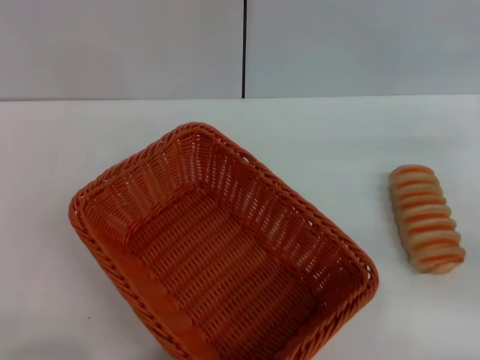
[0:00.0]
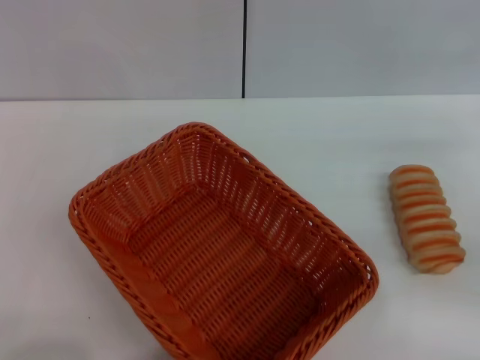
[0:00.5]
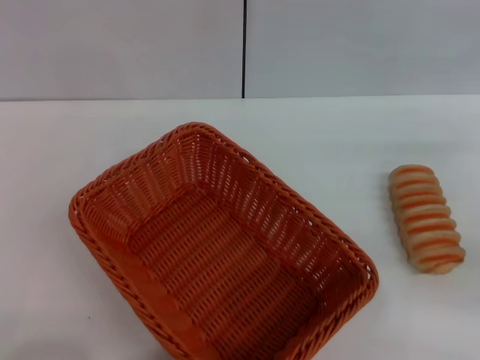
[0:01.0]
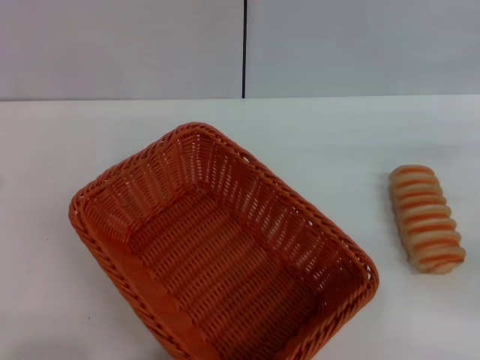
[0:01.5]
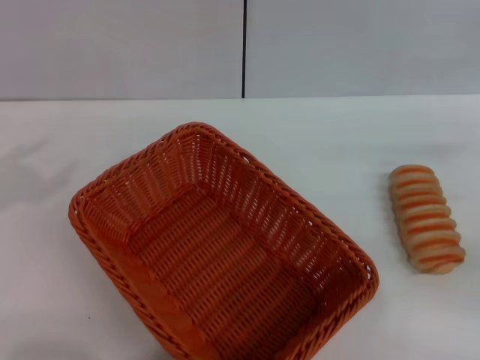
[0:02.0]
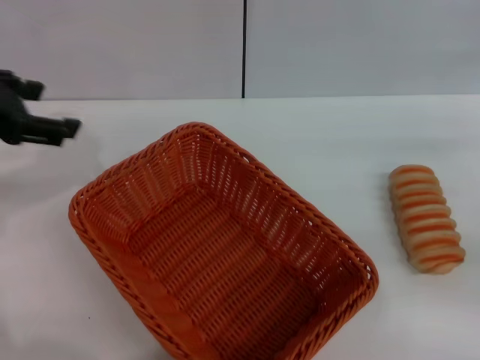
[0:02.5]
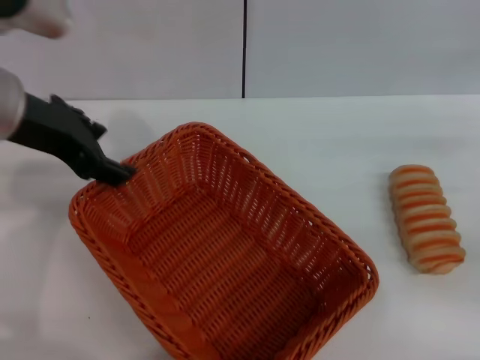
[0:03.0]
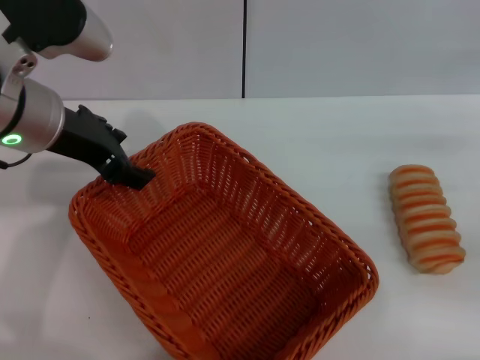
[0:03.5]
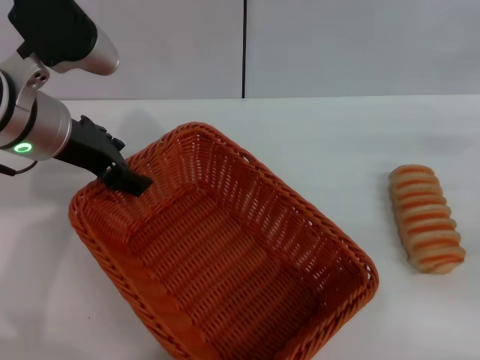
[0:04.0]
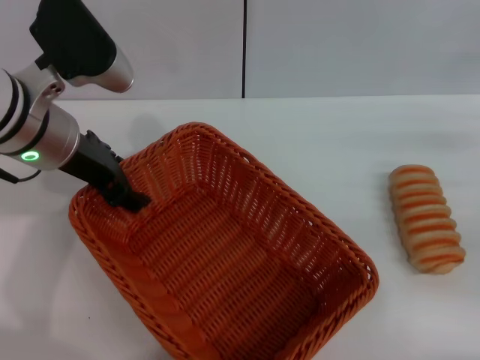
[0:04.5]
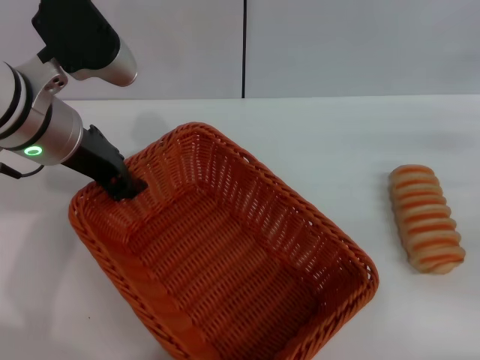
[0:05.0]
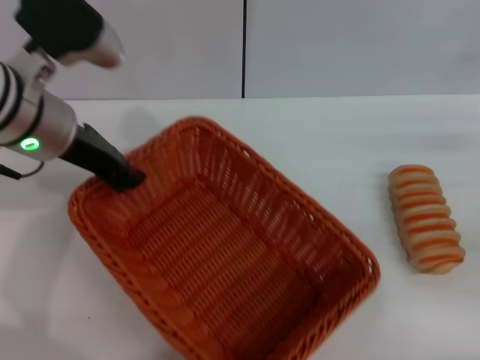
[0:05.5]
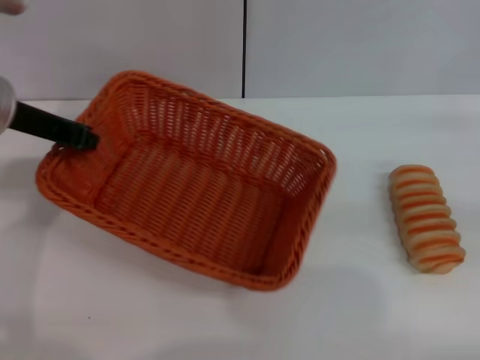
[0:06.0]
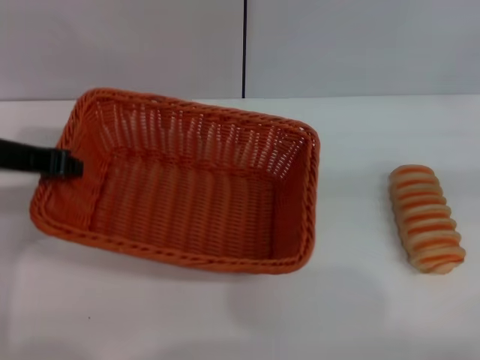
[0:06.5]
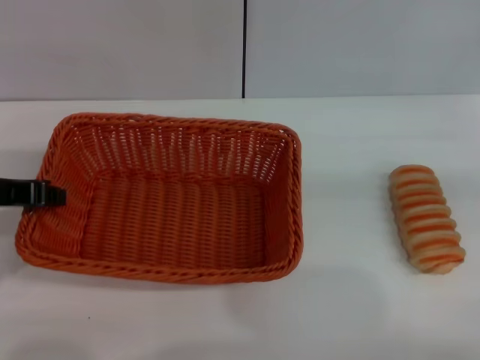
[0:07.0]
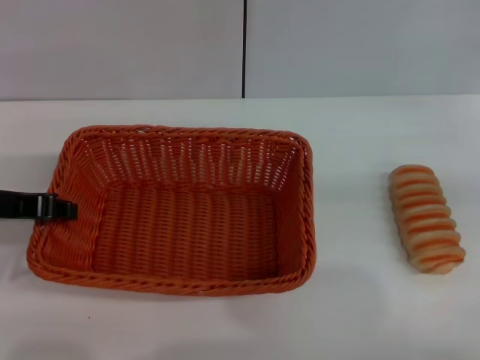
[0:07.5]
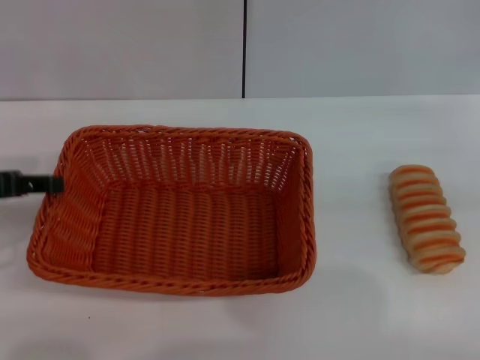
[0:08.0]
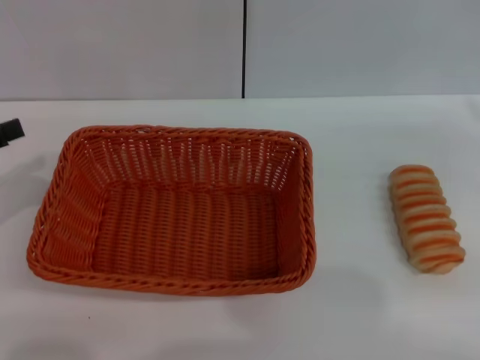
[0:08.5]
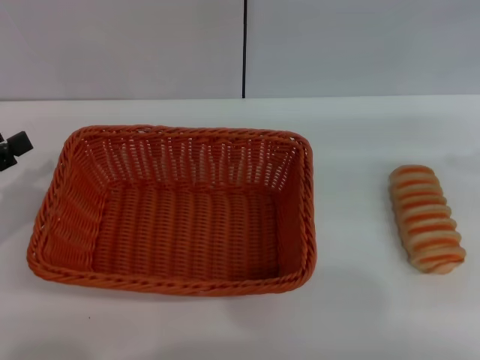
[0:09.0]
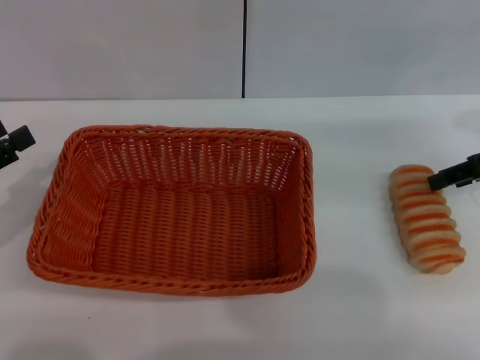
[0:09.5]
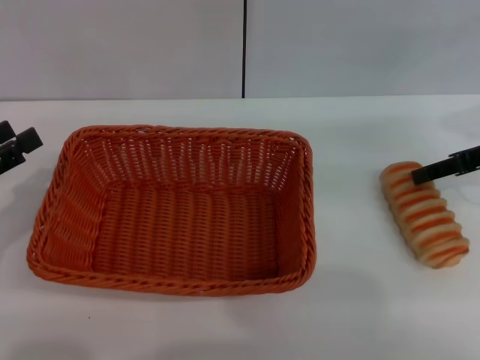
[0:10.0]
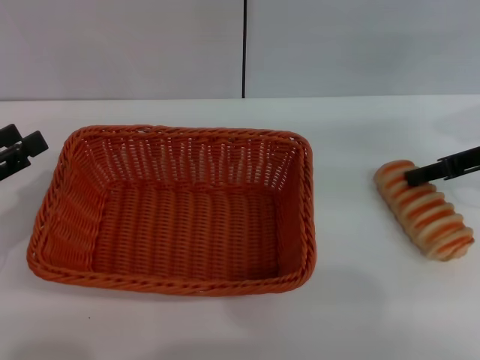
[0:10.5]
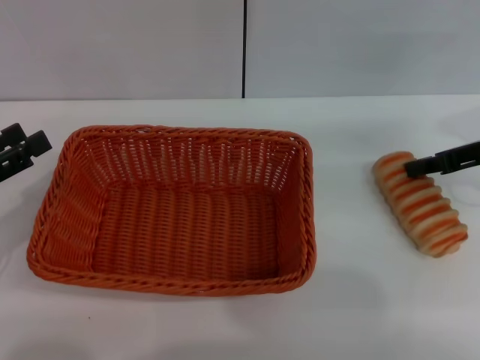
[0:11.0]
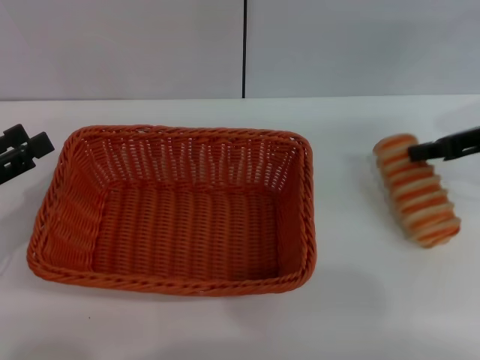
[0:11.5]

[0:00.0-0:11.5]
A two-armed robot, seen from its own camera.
Step, 0:00.0 to 0:05.5: Pick up the light basket with the left gripper.
Step, 0:06.0 to 0:08.0: Place the light basket in the center of view with the left gripper.
0:02.0 to 0:04.0: The left gripper shifts about 20 cm to the right and forward.
0:04.0 to 0:06.0: The right gripper ends up roughly 5 cm from where it was. The left gripper closes its fingers.
0:06.0 to 0:07.5: The left gripper heads backward, covering about 5 cm.
0:07.5 to 0:09.5: Both grippers travel together to the left, approximately 5 cm. The right gripper goes upward and returns, about 5 cm each way. Meanwhile the left gripper opens up.
0:09.5 to 0:11.5: The right gripper closes up.

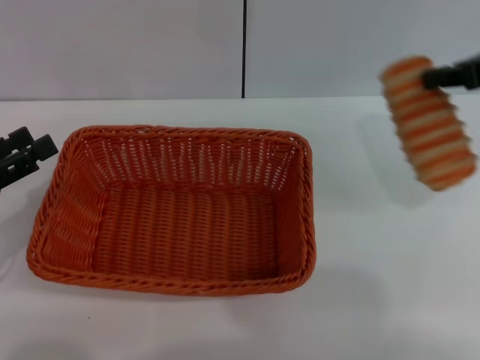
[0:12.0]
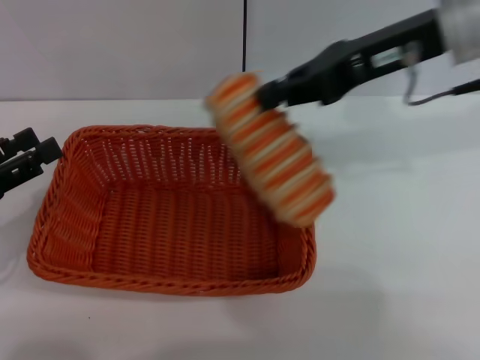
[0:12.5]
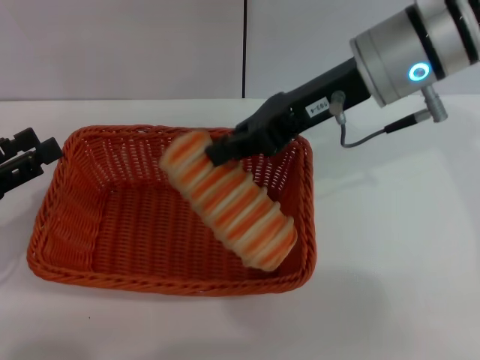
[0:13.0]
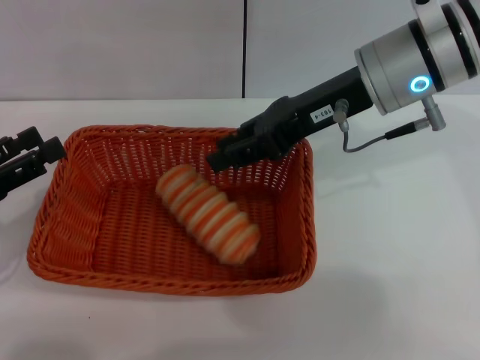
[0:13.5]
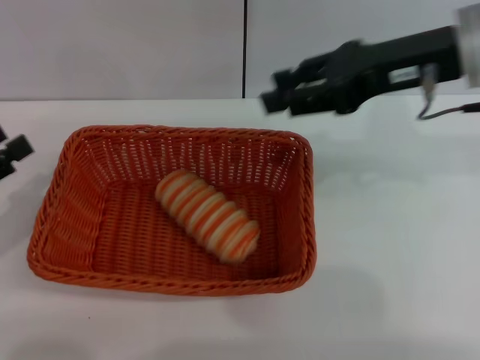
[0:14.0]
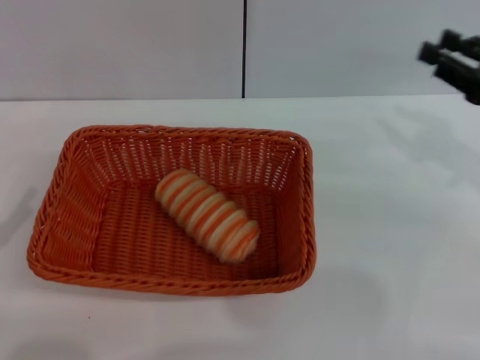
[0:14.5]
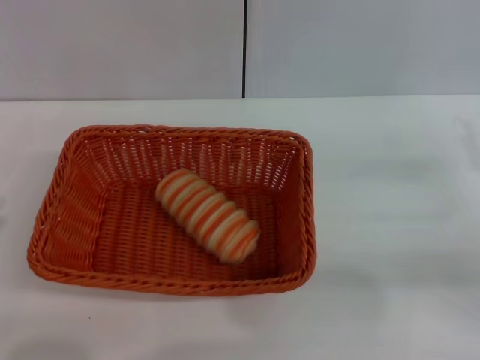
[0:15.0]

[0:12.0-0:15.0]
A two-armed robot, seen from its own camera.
Step, 0:12.0 to 0:13.5: Place the long bread into the light basket with the right gripper.
0:12.0 to 0:13.5: The right gripper heads to the left, covering some 15 cm.
0:13.5 to 0:15.0: The right gripper moves to the right, downward and backward, approximately 30 cm, and opens up. Meanwhile the left gripper goes some 10 cm backward and downward.
